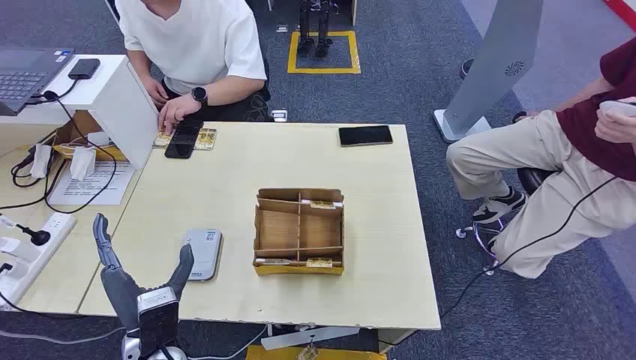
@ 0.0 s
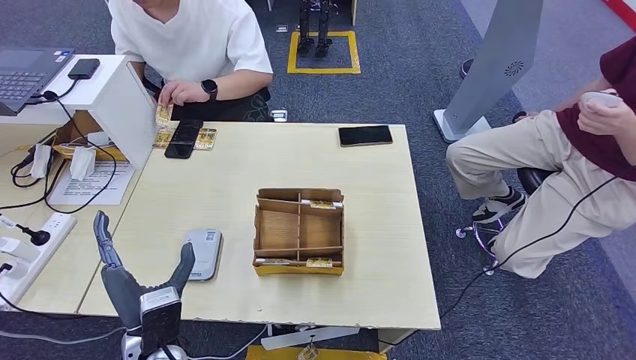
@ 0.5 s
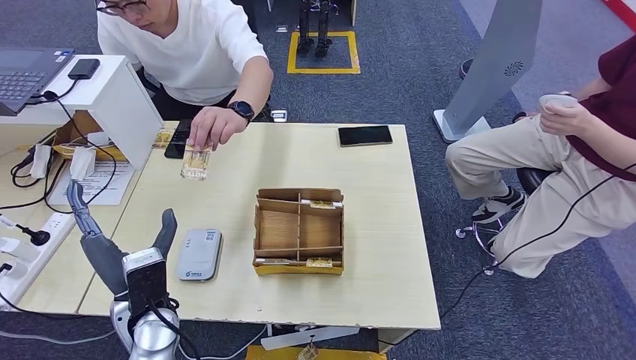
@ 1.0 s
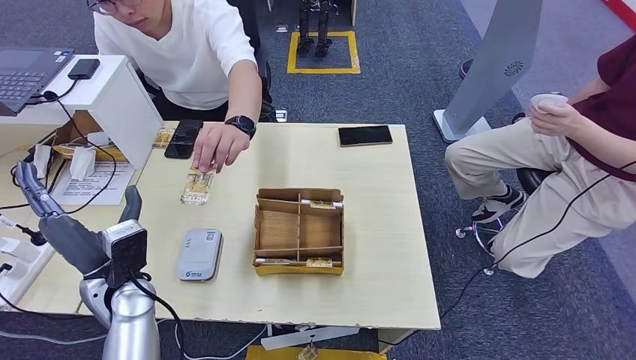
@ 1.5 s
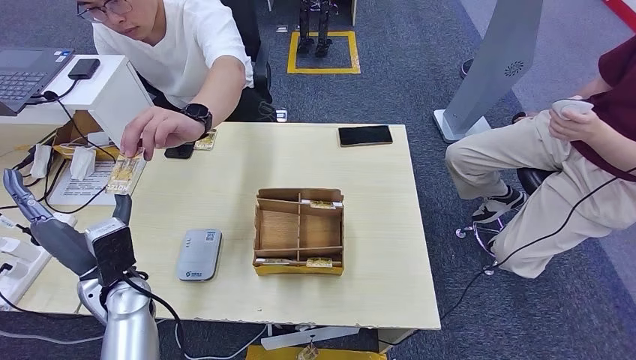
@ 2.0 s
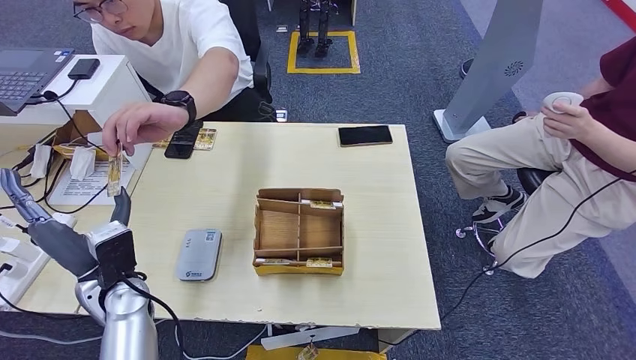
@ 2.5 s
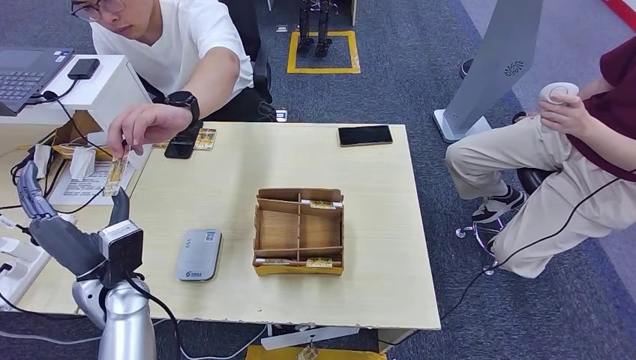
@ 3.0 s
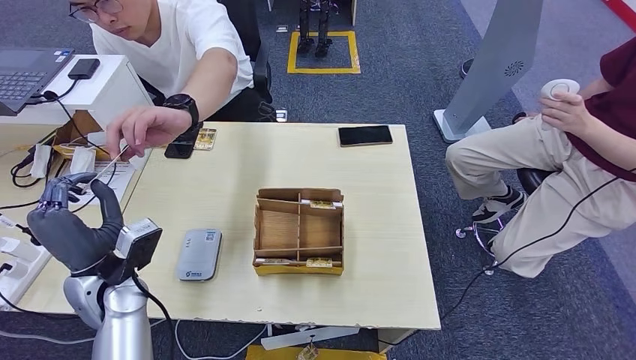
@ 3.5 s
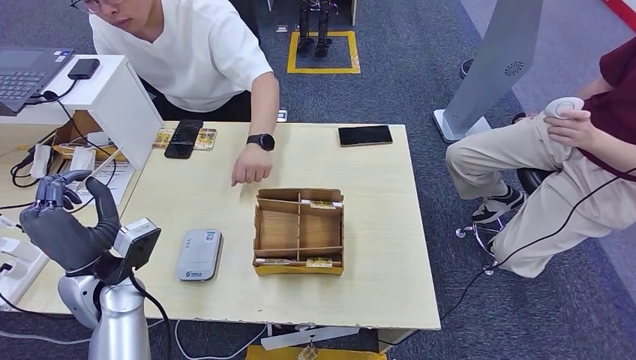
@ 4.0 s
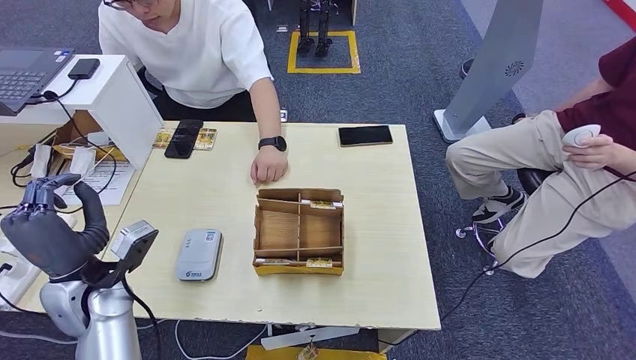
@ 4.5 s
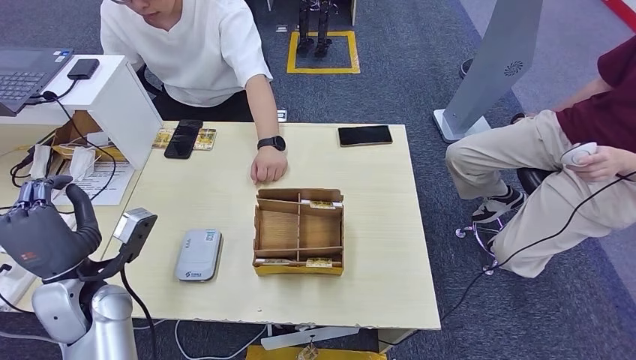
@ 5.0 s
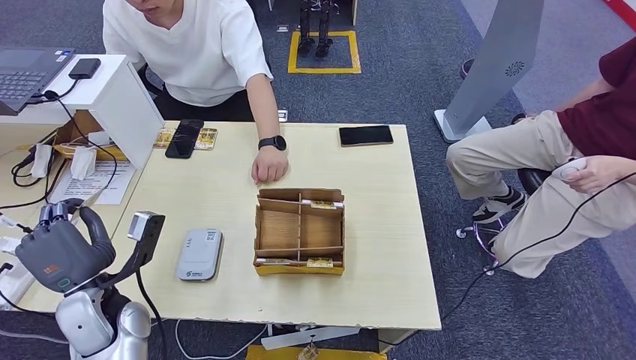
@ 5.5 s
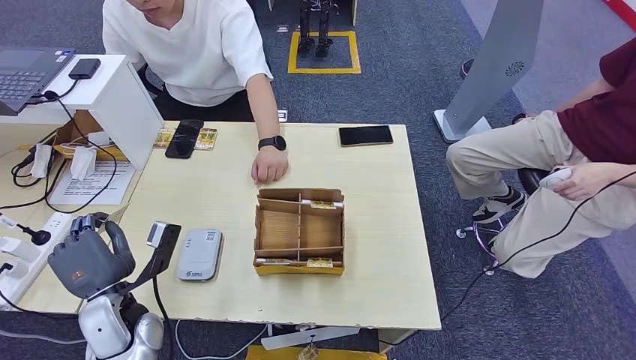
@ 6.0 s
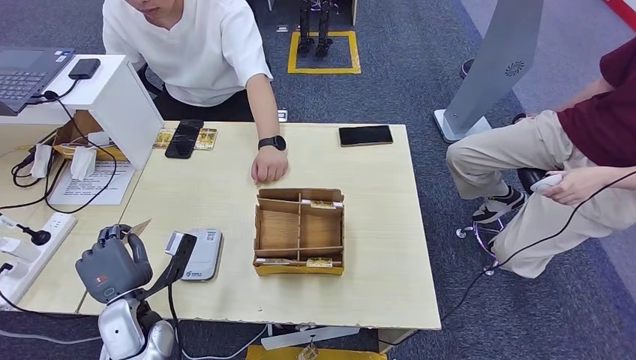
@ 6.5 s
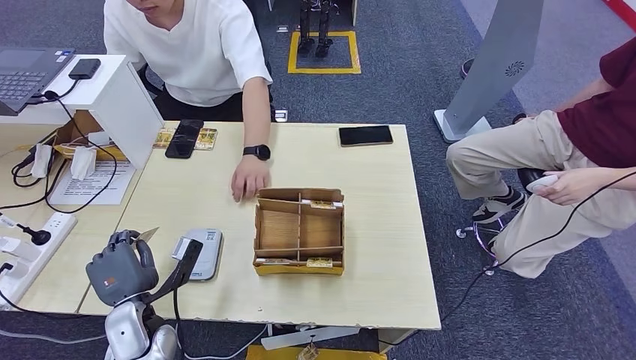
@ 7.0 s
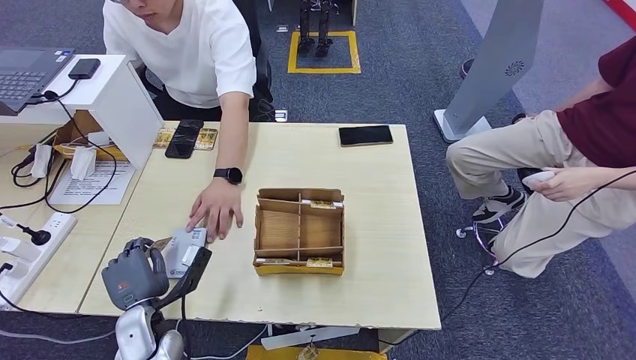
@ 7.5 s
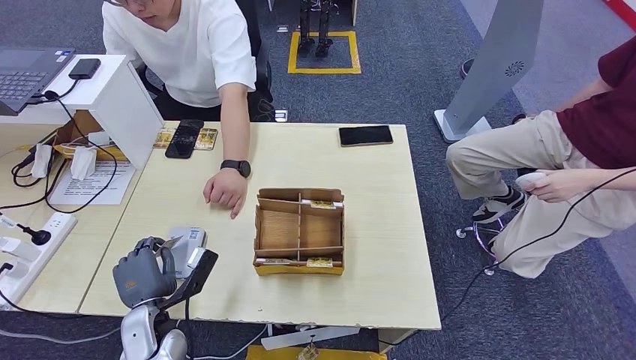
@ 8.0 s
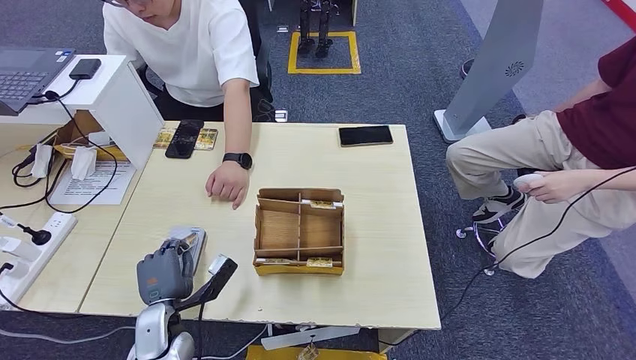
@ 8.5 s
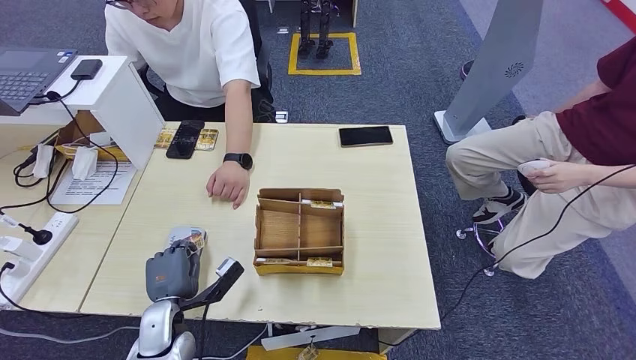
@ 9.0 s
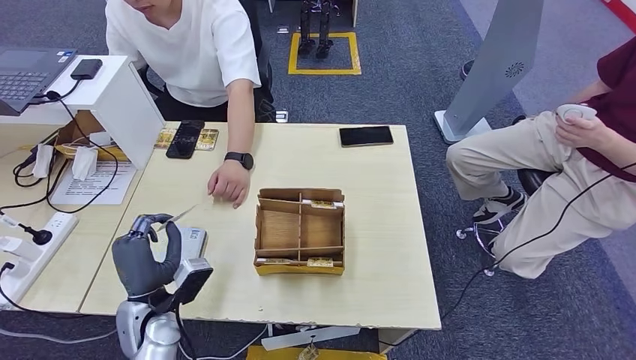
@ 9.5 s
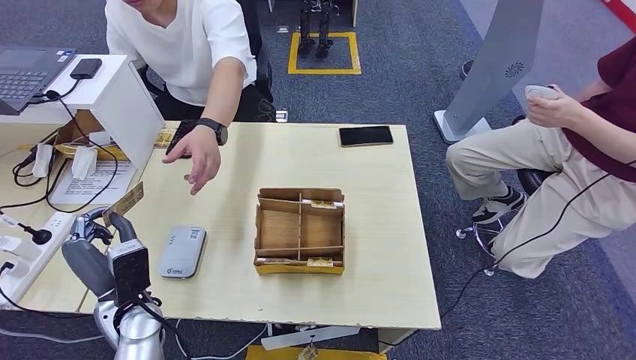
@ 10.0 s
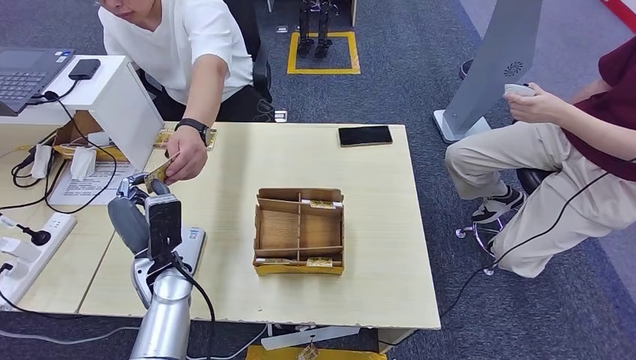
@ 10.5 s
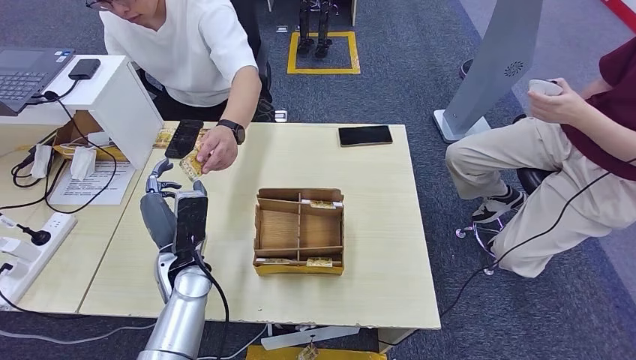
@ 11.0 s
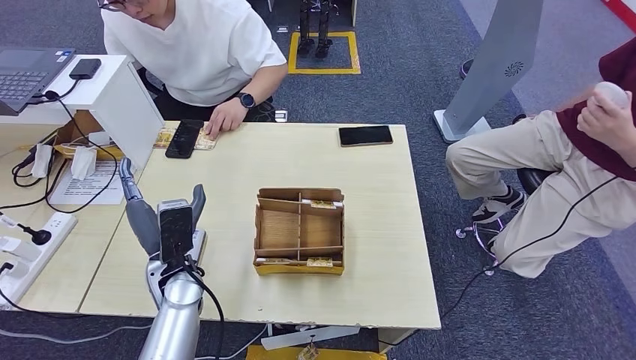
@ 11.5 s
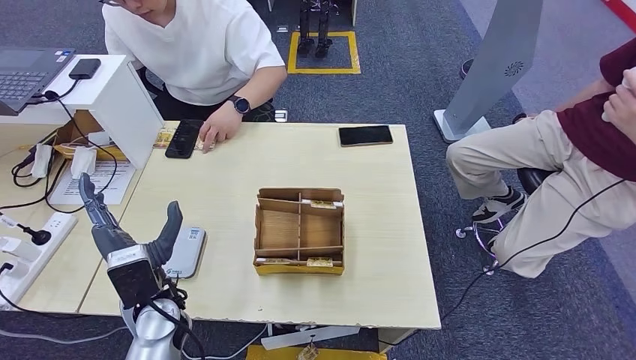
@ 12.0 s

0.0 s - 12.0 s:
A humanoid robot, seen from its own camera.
Step, 0.0 s - 4.0 s: Take the ID card from the person's hand.
Step, 4.5 s - 8.5 s: Place the ID card on the card reader.
Step, 9.5 s - 11.5 s: Hand the ID card to the person.
4.0 s - 6.0 s: The left hand is displaced downward by some 5 cm.
6.0 s - 8.0 s: The left hand goes some 10 cm downward.
8.0 s - 10.0 s: The left hand travels upward by roughly 5 cm.

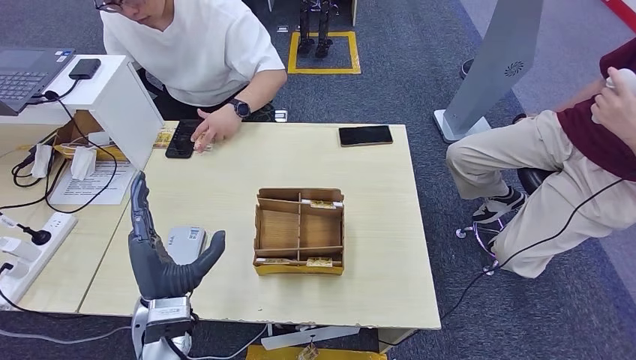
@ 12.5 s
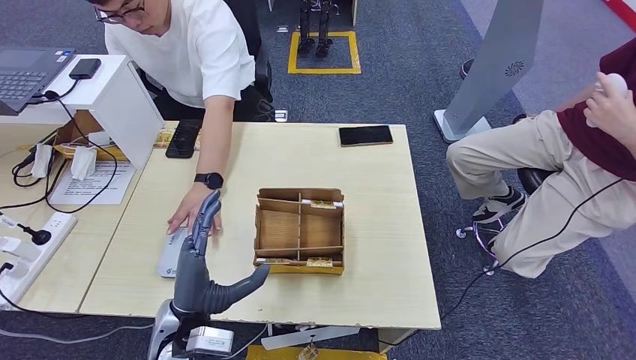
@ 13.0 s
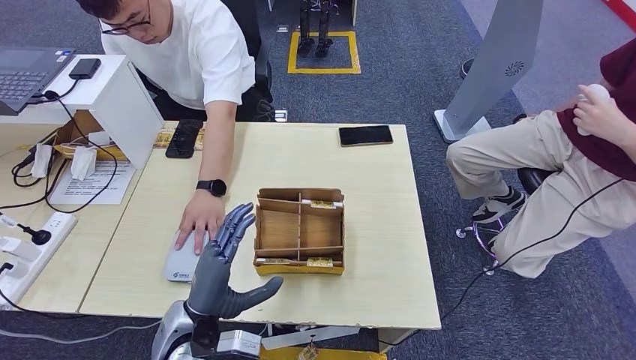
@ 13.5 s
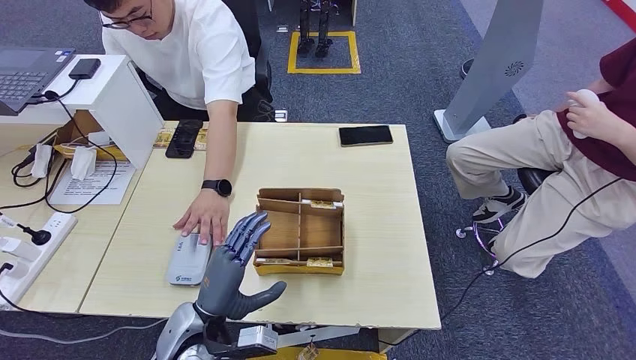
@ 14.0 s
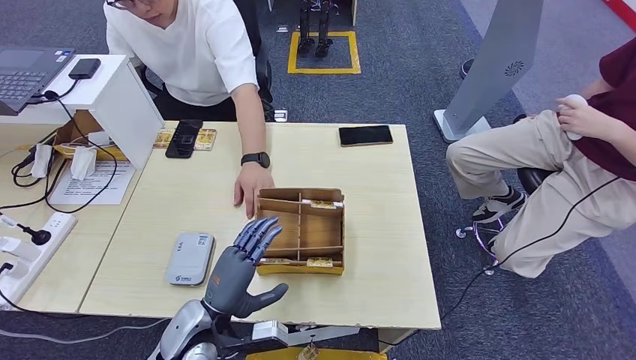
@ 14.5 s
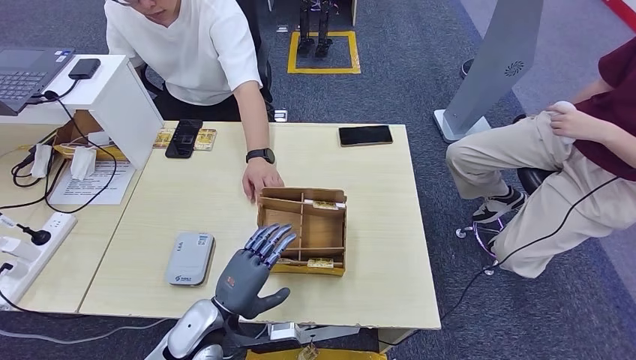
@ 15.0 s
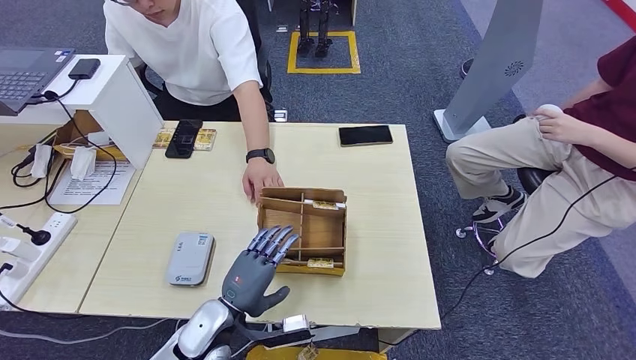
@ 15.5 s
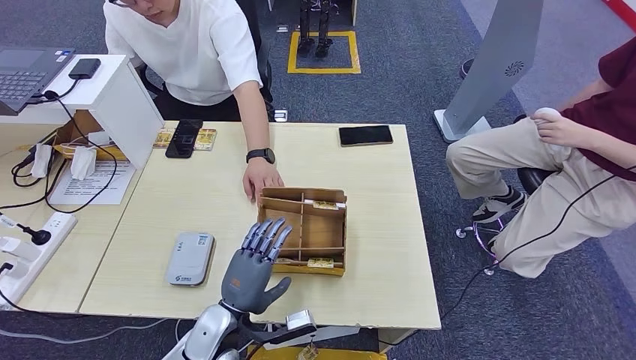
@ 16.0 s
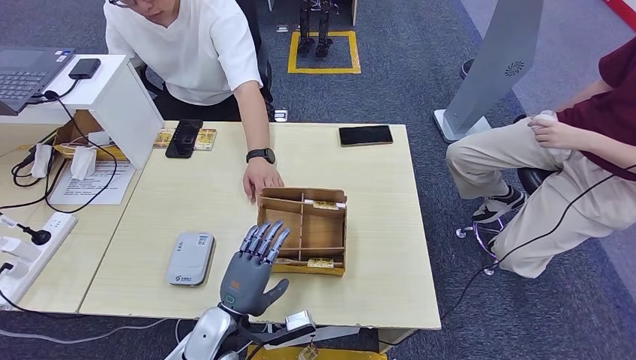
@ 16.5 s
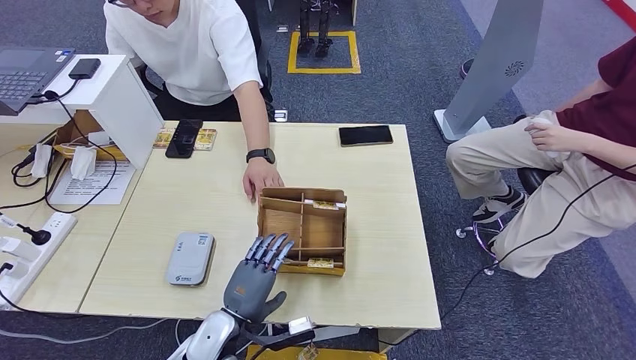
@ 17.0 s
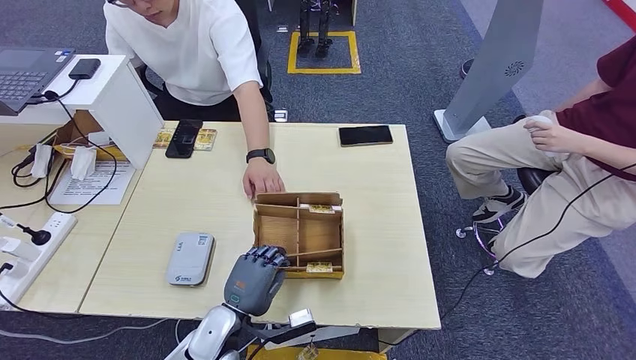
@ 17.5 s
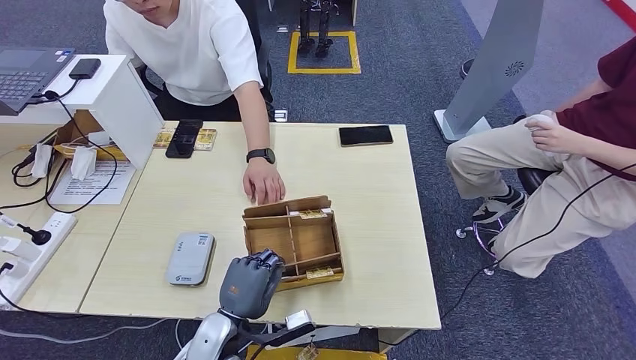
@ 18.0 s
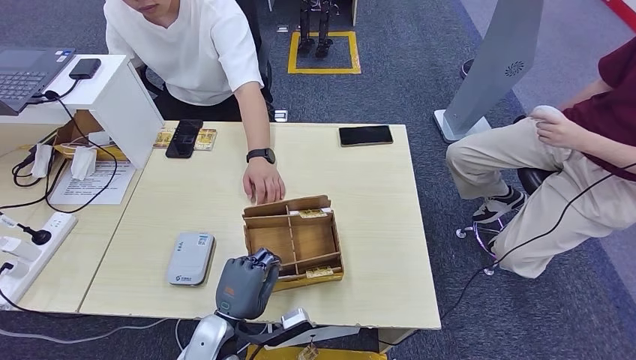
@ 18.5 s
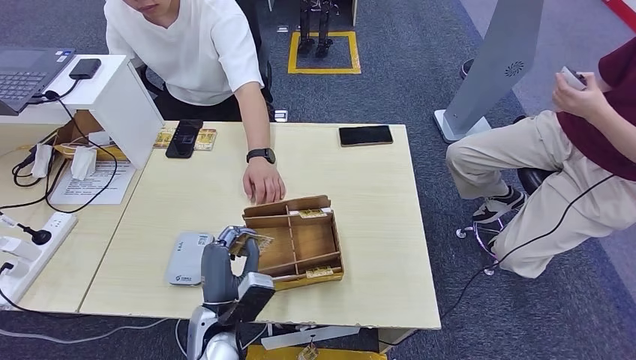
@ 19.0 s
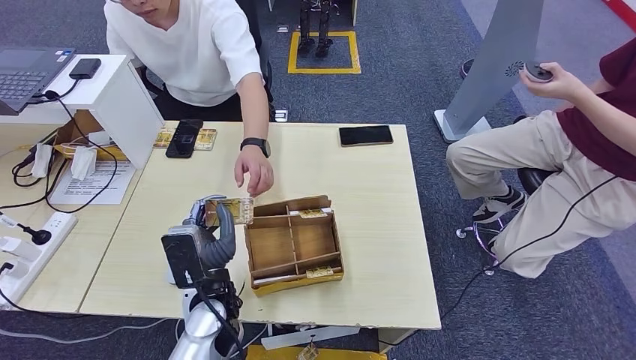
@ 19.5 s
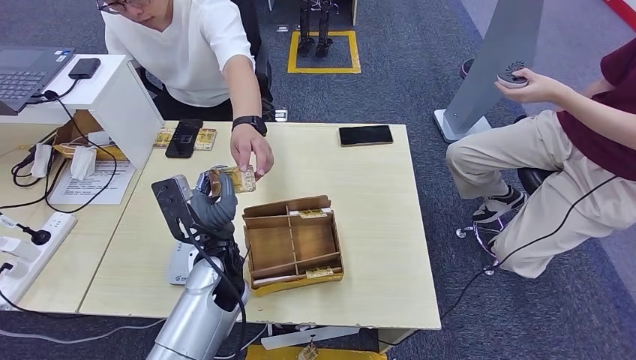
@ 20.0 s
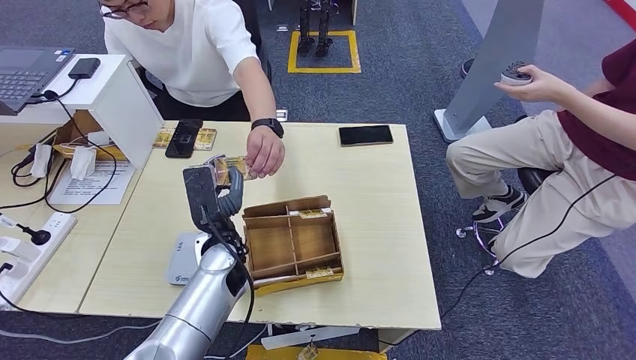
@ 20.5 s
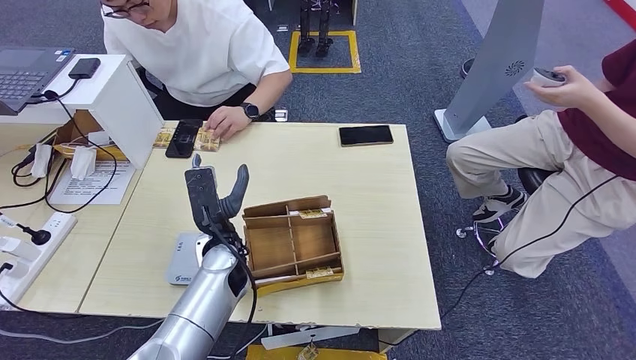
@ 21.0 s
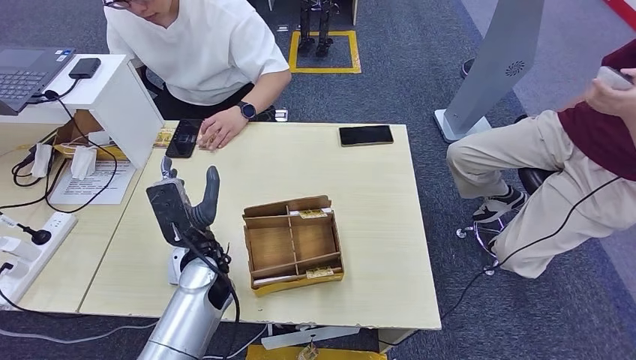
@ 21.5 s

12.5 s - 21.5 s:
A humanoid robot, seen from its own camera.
Step, 12.5 s - 18.5 s: Pick up the room key from the key card box.
Step, 19.0 s - 21.5 s: Hand the room key to the person.
12.5 s - 14.5 s: The left hand shifts approximately 5 cm downward.
14.5 s - 17.0 s: The left hand moves roughly 5 cm.
17.0 s - 19.5 s: The left hand travels upward by some 10 cm.
19.5 s - 21.5 s: The left hand travels forward by about 5 cm.
